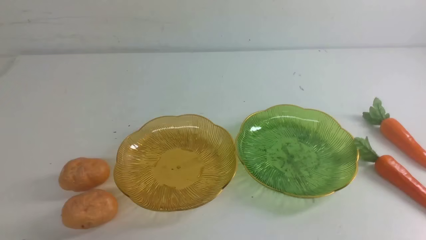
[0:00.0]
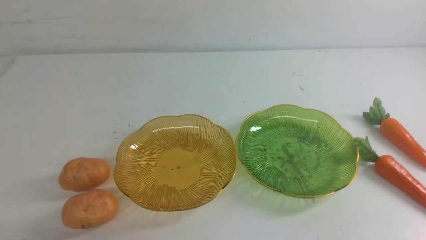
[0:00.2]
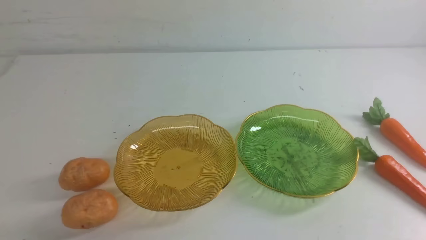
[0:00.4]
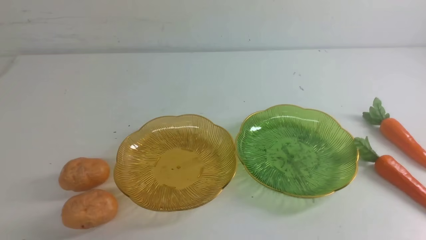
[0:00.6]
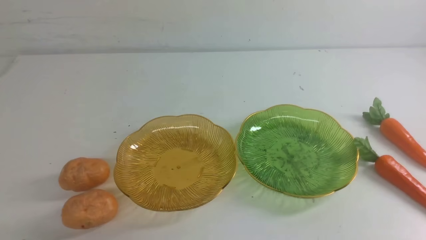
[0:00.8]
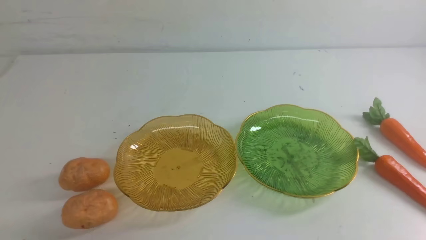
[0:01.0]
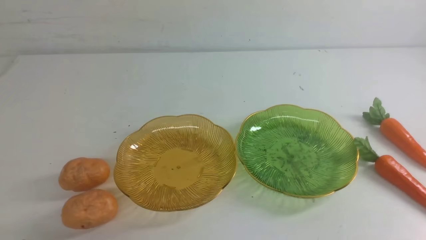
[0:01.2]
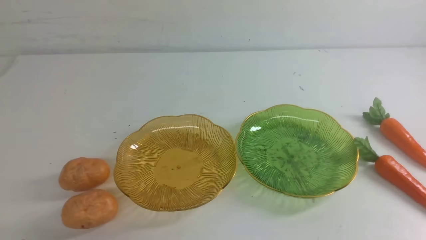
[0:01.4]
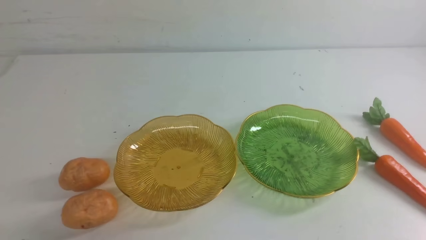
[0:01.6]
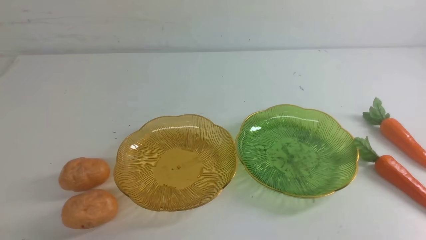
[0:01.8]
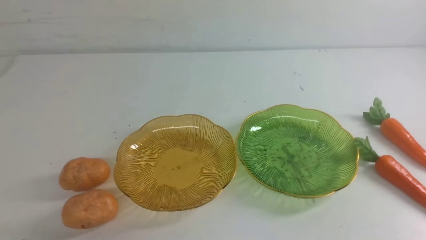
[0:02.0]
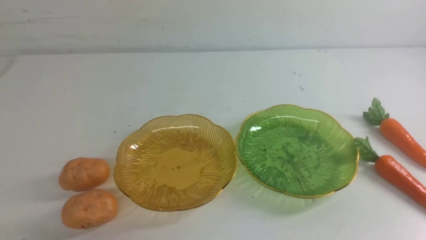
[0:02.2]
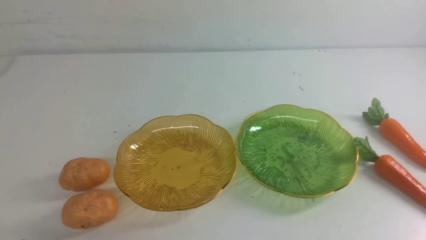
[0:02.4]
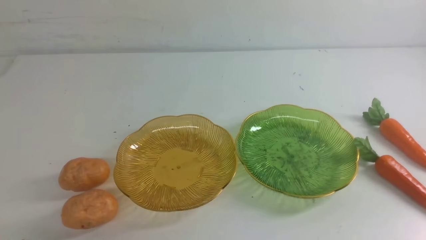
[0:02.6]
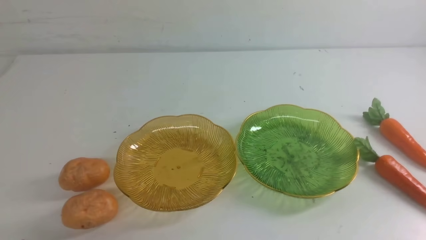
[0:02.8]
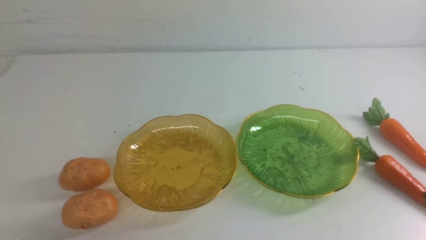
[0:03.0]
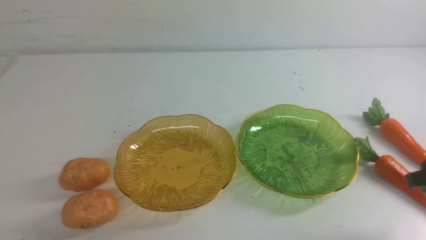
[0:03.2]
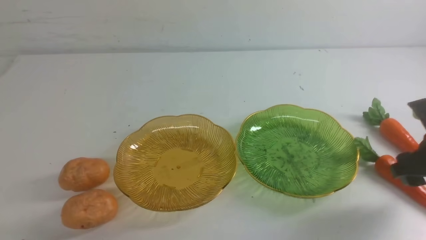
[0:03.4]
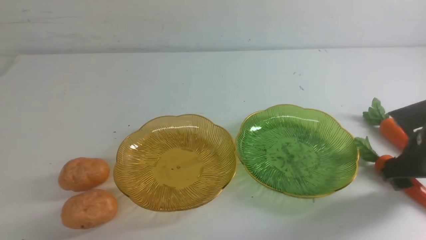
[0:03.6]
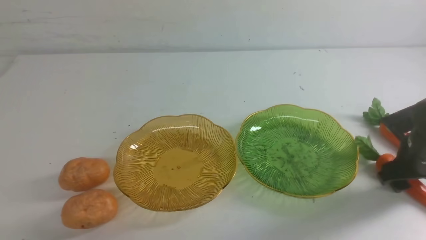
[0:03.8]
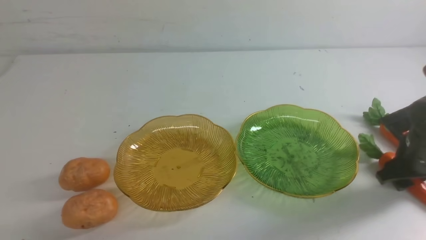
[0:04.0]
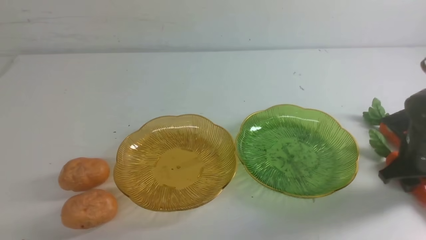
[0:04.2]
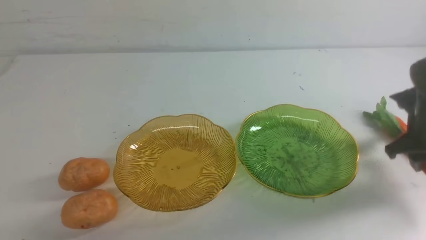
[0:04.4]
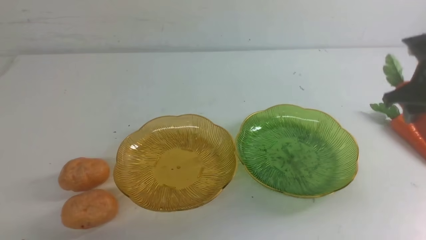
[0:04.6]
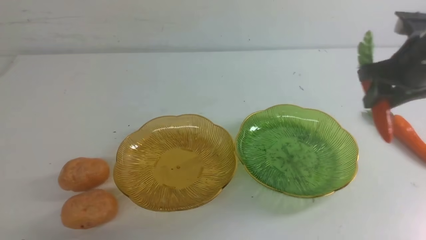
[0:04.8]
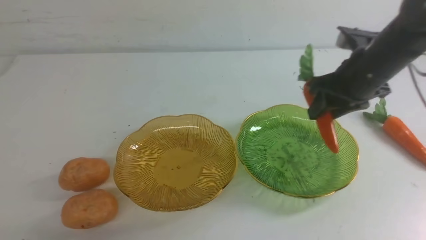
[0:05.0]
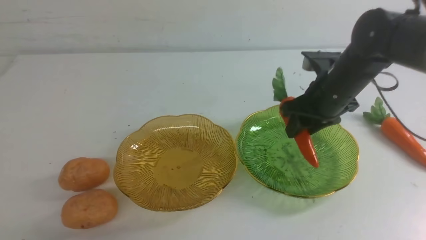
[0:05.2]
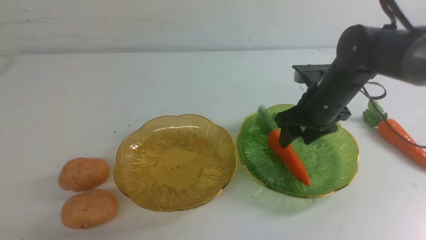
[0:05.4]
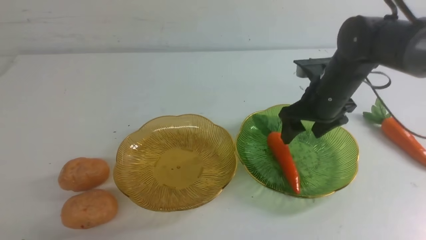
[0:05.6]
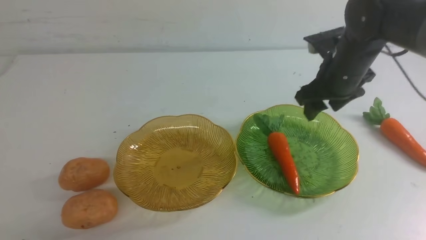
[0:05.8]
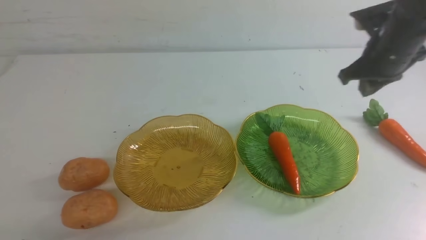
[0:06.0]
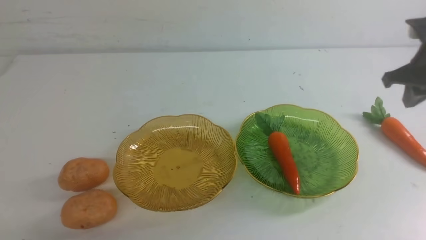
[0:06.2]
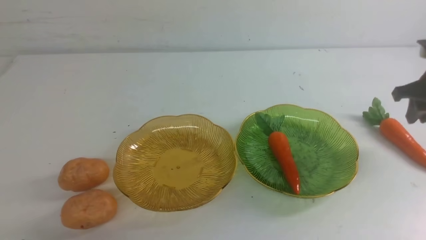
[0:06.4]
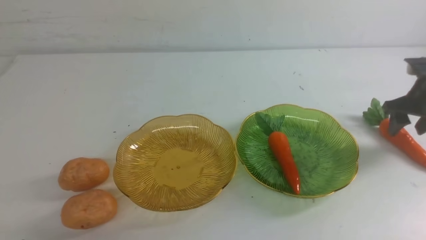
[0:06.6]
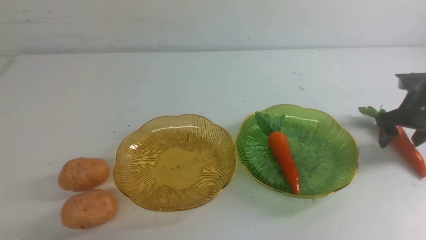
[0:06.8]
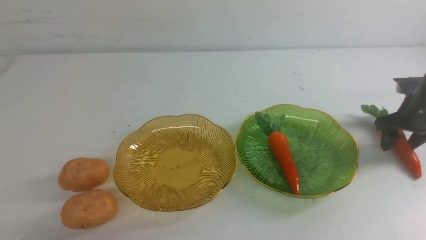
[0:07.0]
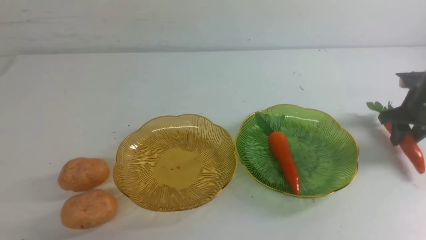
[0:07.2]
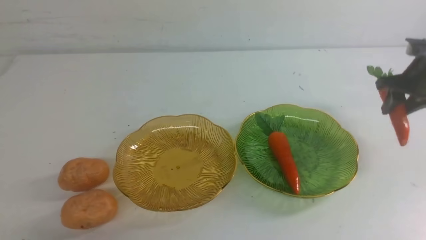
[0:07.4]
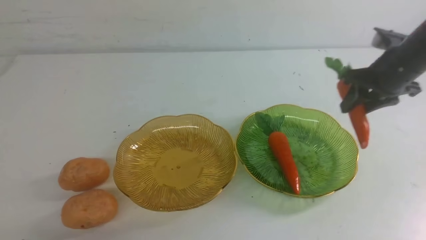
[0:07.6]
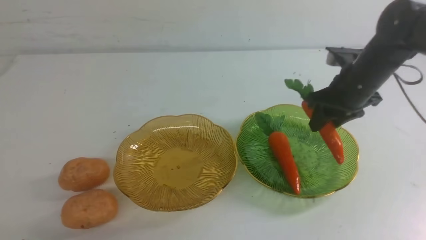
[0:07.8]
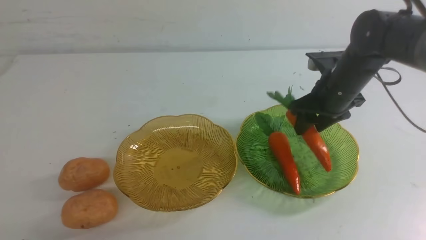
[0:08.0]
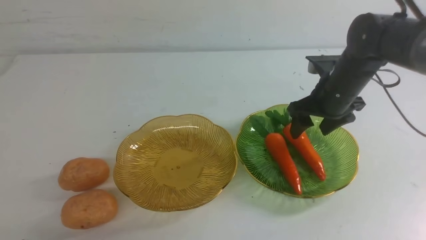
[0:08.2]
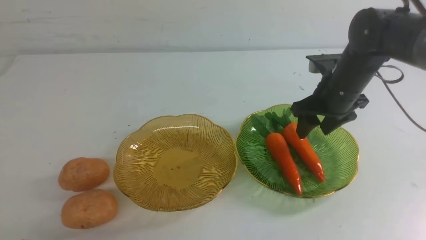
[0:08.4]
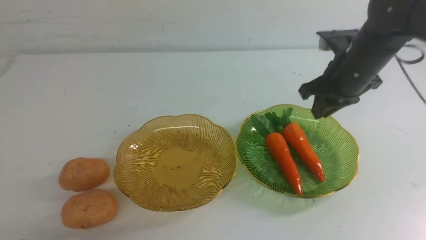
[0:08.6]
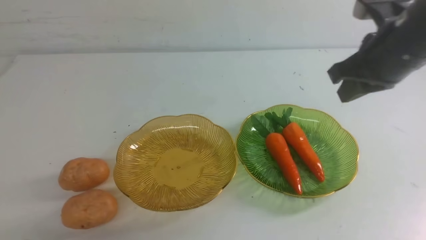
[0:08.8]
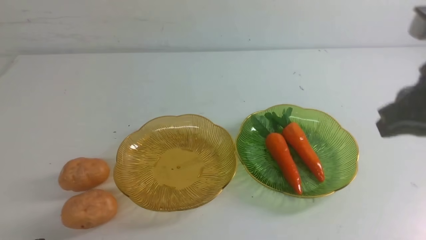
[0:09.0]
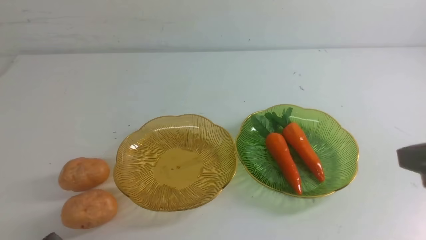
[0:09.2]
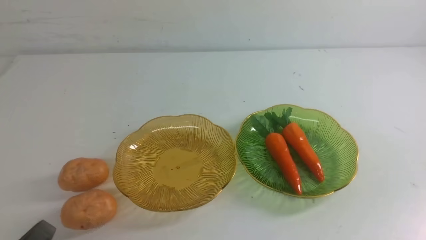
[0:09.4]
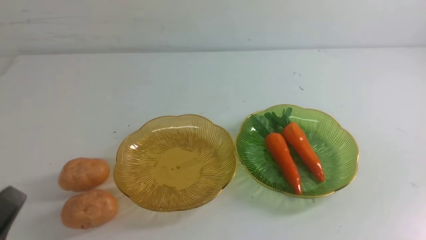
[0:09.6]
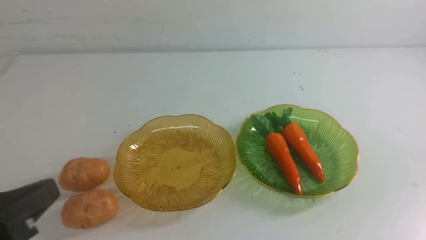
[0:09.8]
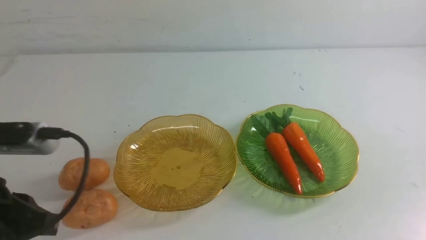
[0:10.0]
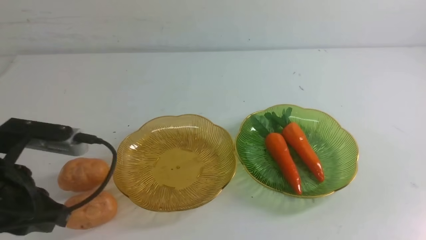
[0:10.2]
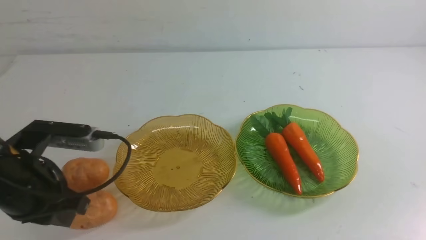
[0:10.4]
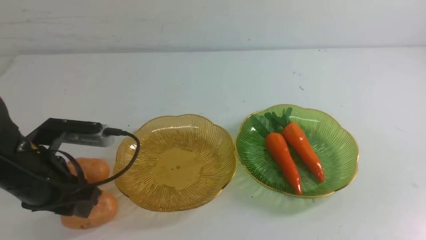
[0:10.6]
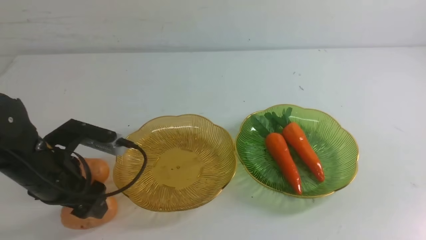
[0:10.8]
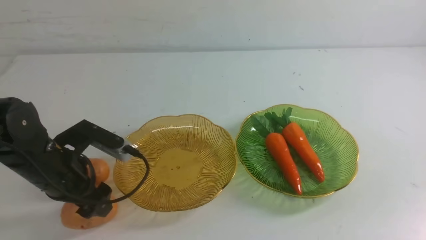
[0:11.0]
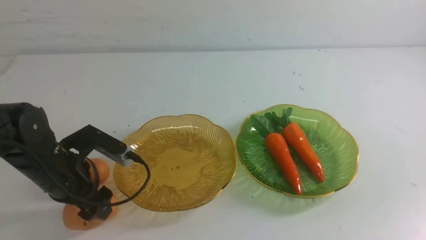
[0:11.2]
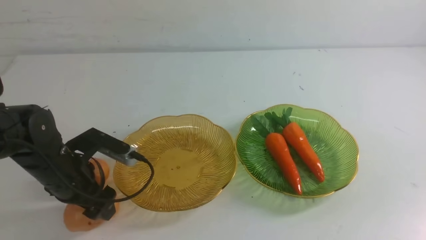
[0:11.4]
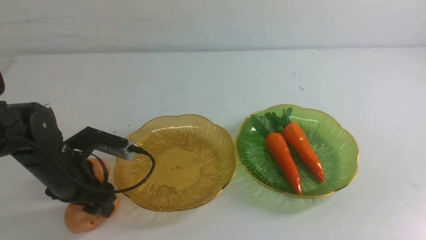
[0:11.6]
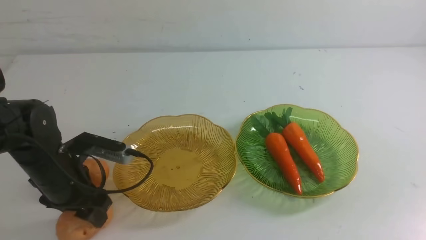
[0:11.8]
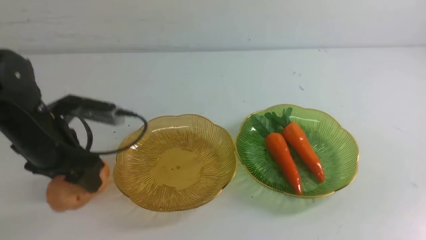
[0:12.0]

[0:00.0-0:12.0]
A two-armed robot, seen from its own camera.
Step, 0:00.0 to 0:08.0: use the right arm to grab a carrot and put it into the right plate.
0:03.0 to 0:04.4: The right gripper is displaced forward and upward by roughly 10 cm.
0:04.4 to 0:06.0: The right gripper reaches approximately 15 cm to the left, then returns, and opens and closes again.
0:06.0 to 0:07.6: The right gripper moves approximately 10 cm to the right and comes back, and opens.
0:07.6 to 0:09.0: The right gripper is displaced backward and upward by approximately 25 cm, and closes.
0:09.0 to 0:10.4: The right gripper shifts about 10 cm backward, while the left gripper is displaced forward and upward by about 20 cm.
0:10.4 to 0:12.0: The left gripper shifts approximately 10 cm forward, moves roughly 10 cm downward and comes back, and opens, then closes once more.

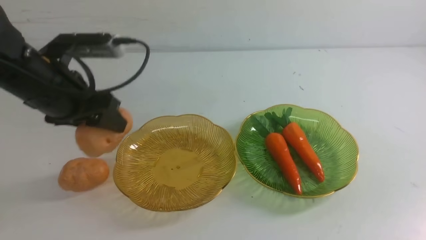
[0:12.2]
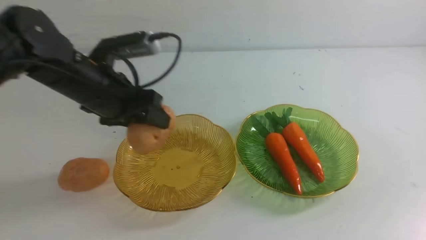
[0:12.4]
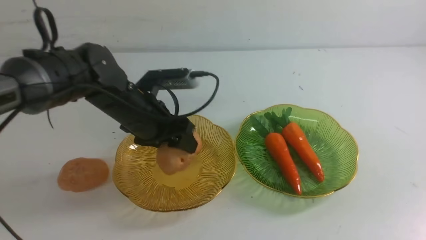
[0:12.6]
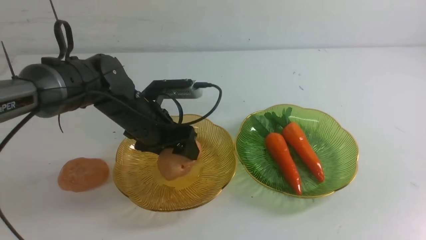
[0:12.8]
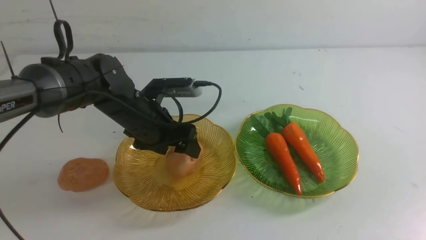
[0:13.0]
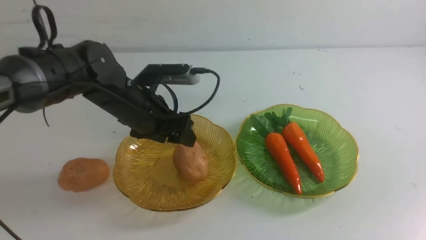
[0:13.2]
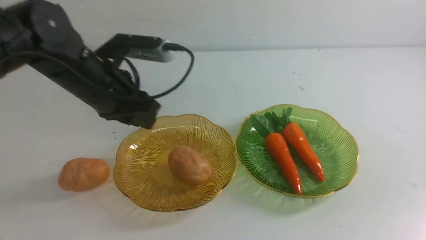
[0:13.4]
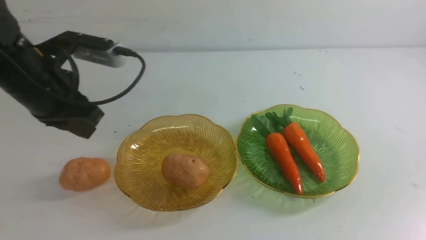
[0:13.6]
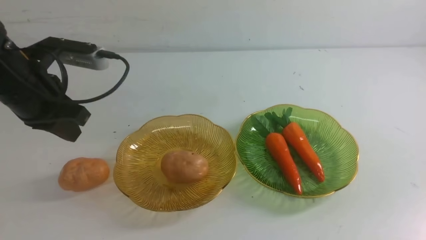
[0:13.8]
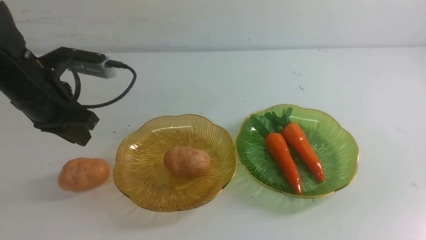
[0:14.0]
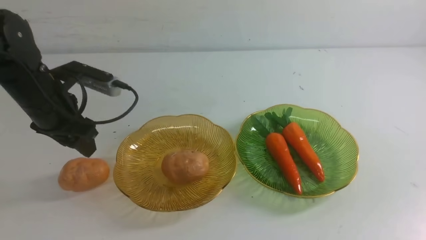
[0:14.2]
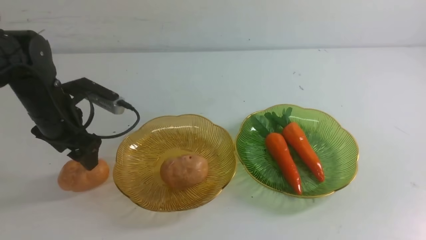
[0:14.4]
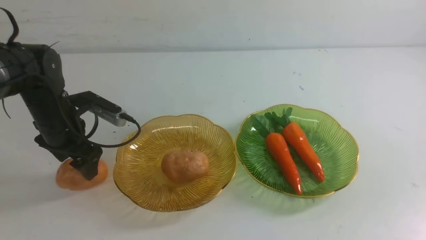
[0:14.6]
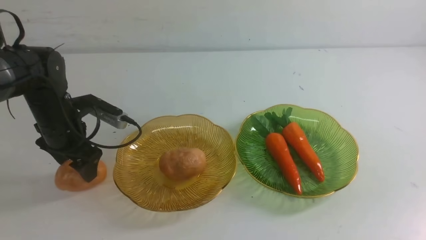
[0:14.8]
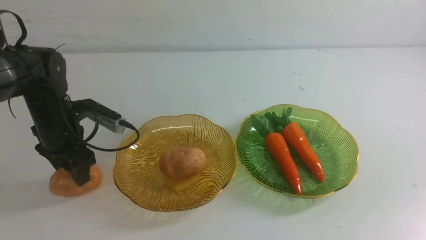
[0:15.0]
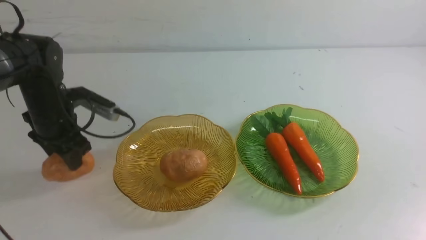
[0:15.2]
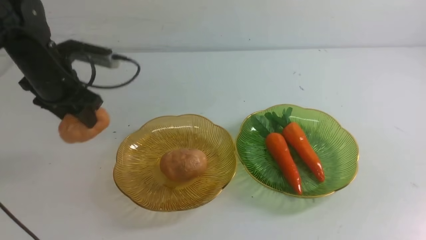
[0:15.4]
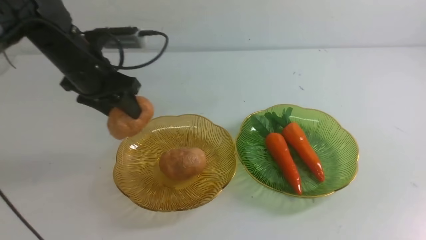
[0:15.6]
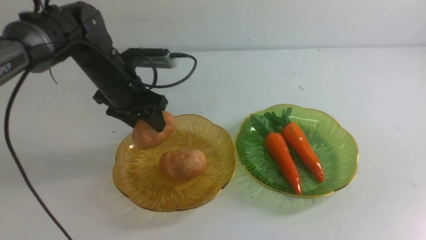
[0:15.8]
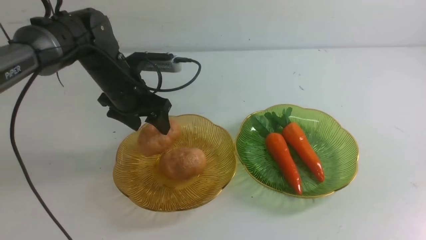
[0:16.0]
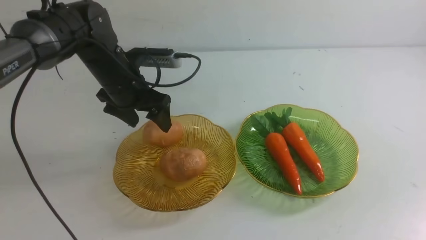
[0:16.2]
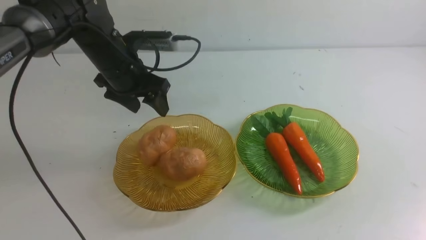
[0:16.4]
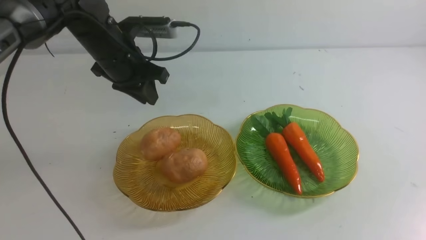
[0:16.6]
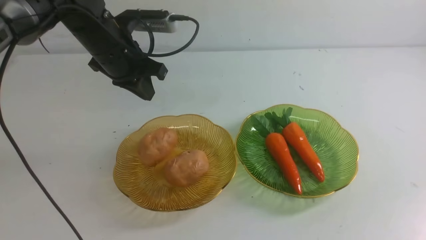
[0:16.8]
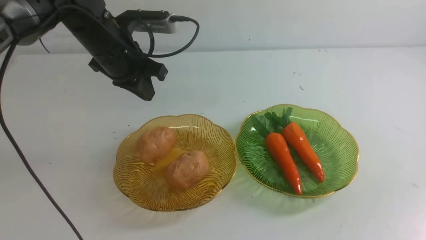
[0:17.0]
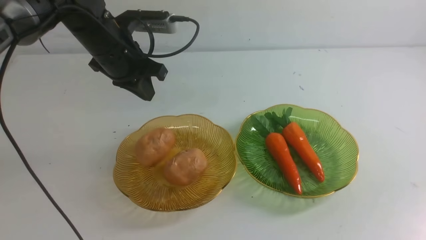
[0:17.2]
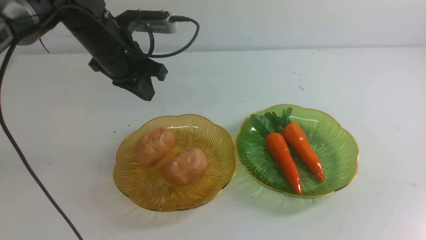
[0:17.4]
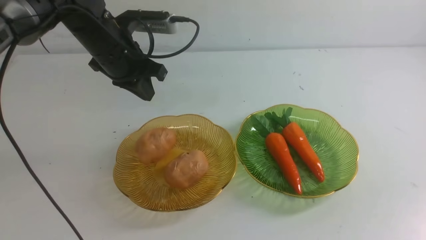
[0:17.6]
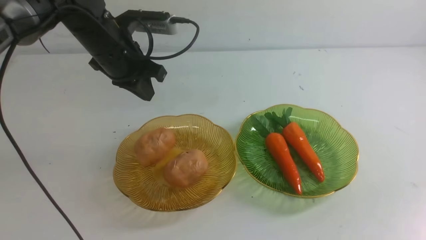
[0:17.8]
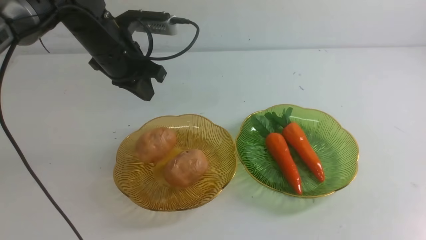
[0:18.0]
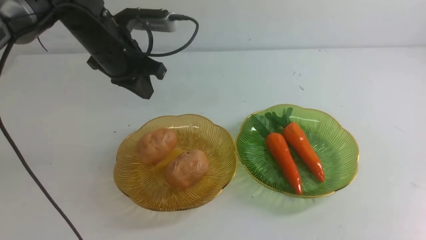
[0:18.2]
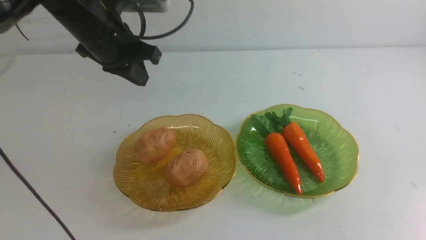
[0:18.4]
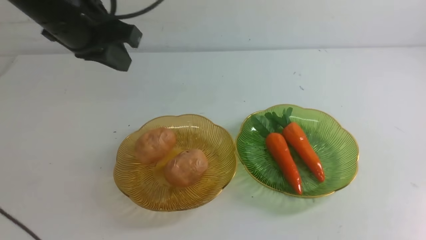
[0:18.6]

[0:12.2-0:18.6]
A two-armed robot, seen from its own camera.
Step, 0:12.2 to 0:16.2: Grab a potato with your left arm and put it on the left plate.
0:12.2 to 0:13.8: The left gripper goes to the right and returns, roughly 5 cm each way, and closes its fingers.
0:13.8 to 0:15.4: The left gripper travels forward and downward by some 10 cm, and opens its fingers.
0:15.4 to 0:17.0: The right gripper ends up roughly 5 cm from where it was, while the left gripper goes approximately 10 cm to the right and upward, and closes.
0:17.0 to 0:18.6: The right gripper heads downward, covering some 10 cm. Meanwhile the left gripper travels upward and backward by about 15 cm.
